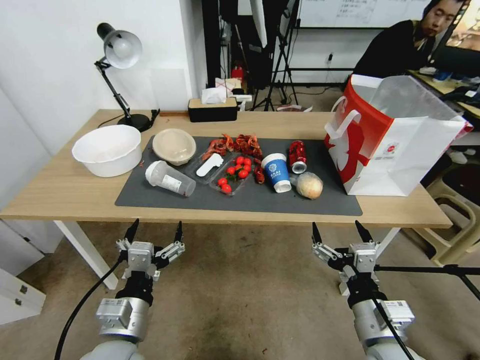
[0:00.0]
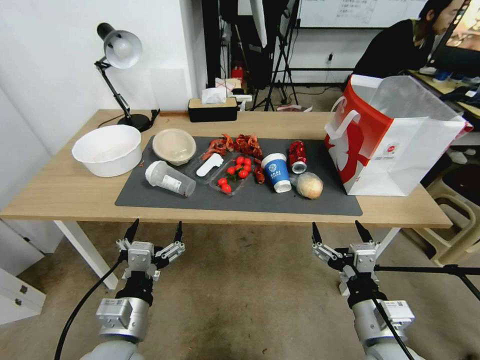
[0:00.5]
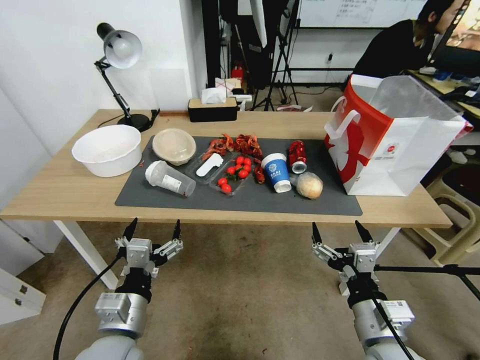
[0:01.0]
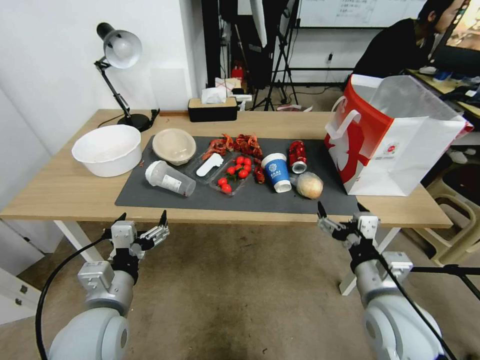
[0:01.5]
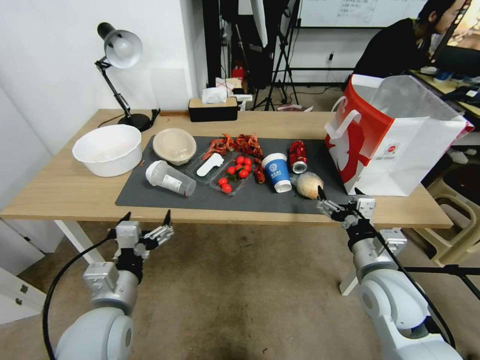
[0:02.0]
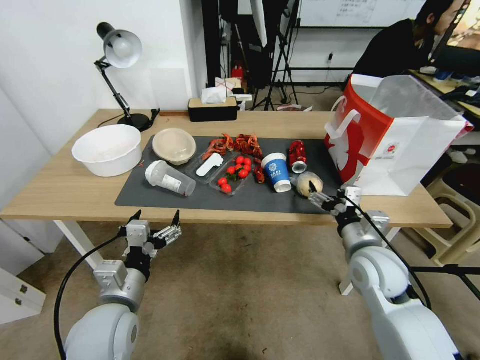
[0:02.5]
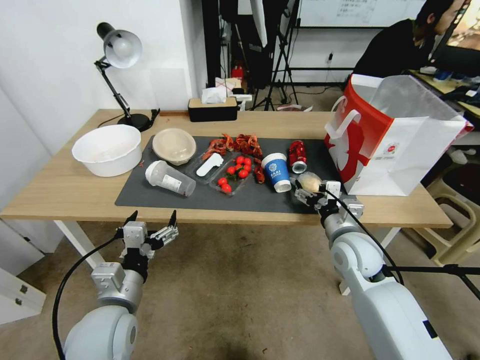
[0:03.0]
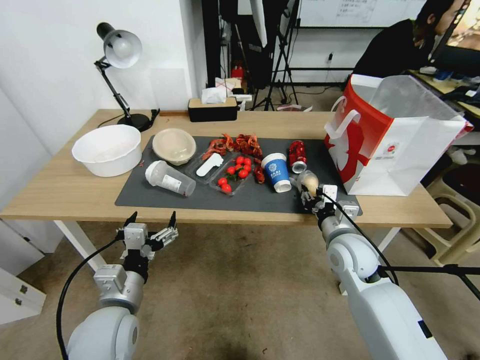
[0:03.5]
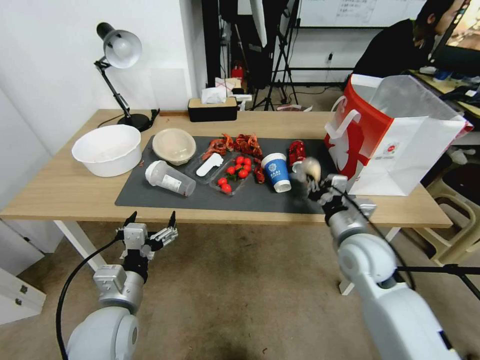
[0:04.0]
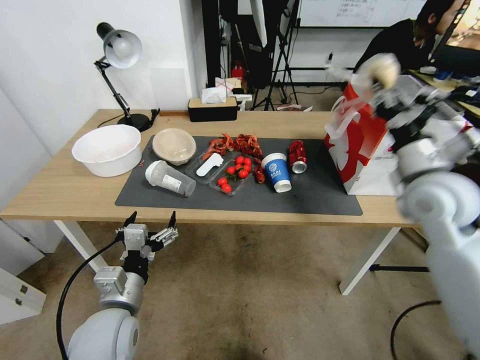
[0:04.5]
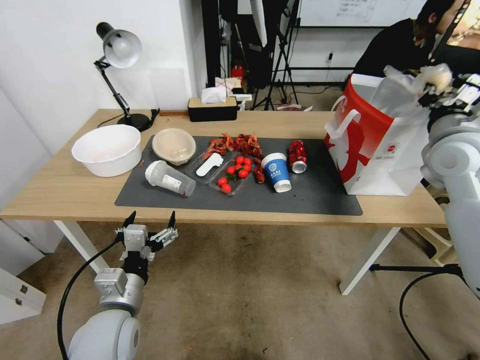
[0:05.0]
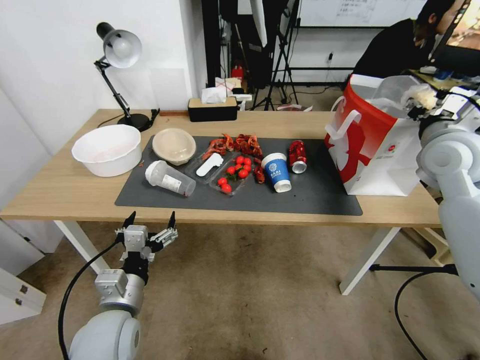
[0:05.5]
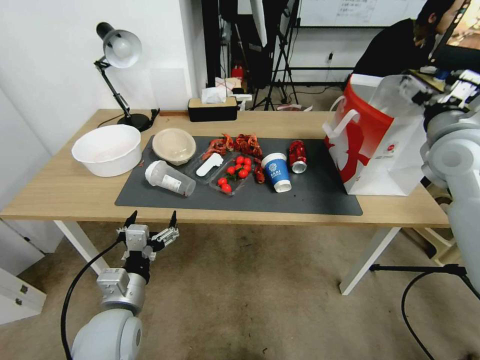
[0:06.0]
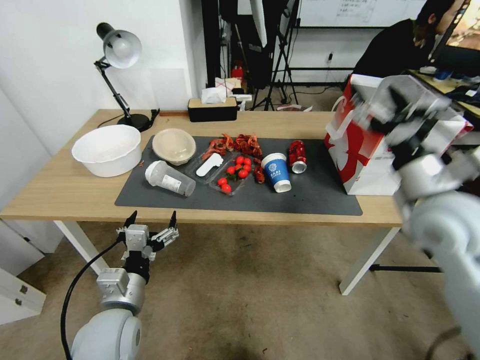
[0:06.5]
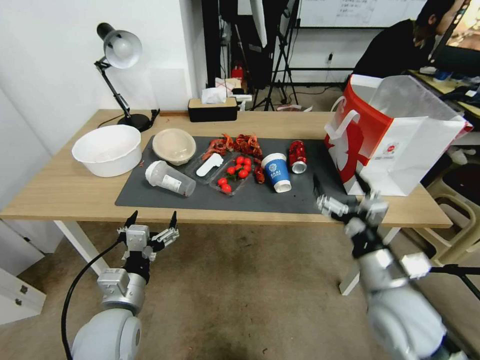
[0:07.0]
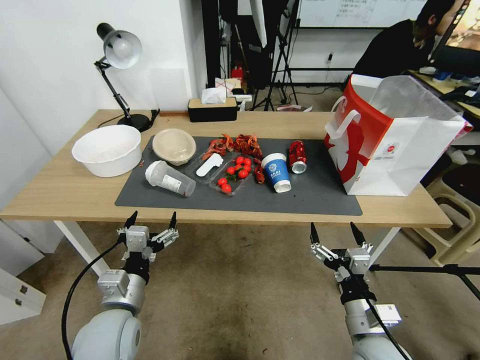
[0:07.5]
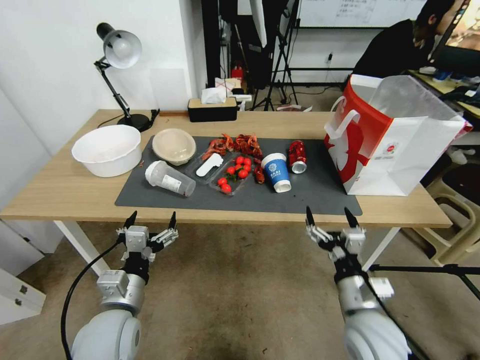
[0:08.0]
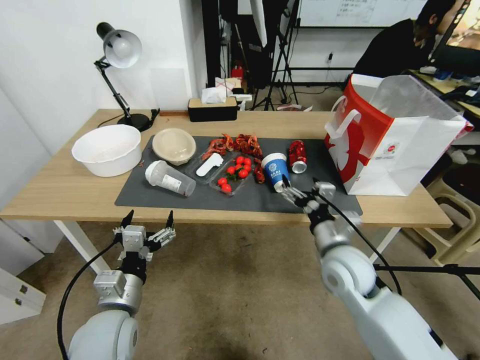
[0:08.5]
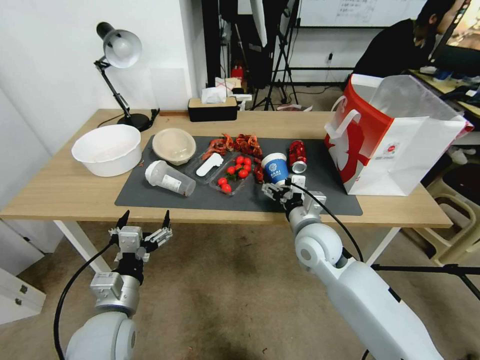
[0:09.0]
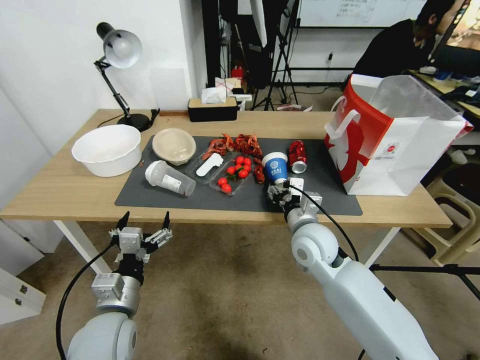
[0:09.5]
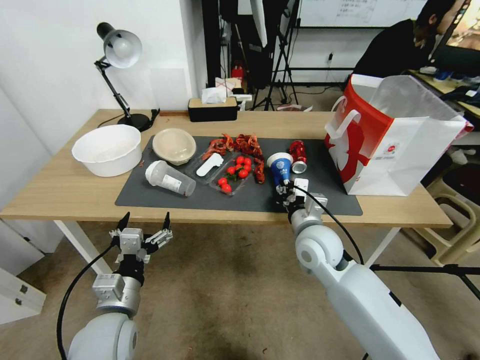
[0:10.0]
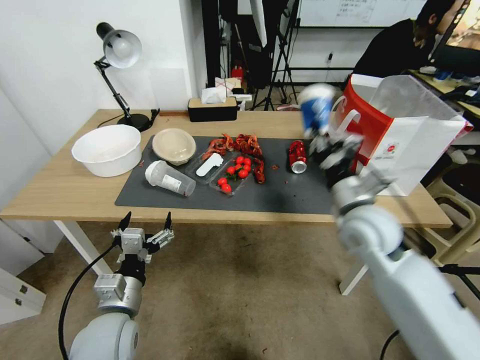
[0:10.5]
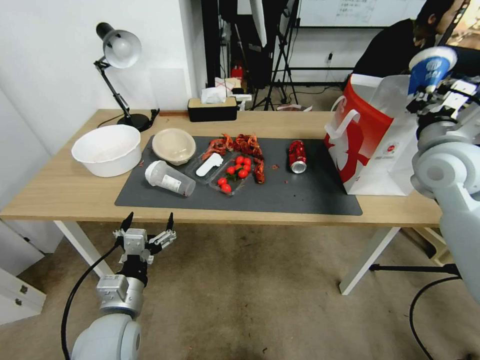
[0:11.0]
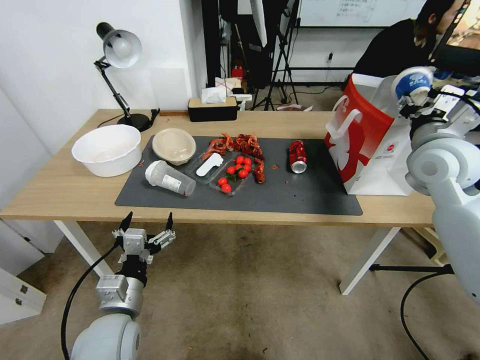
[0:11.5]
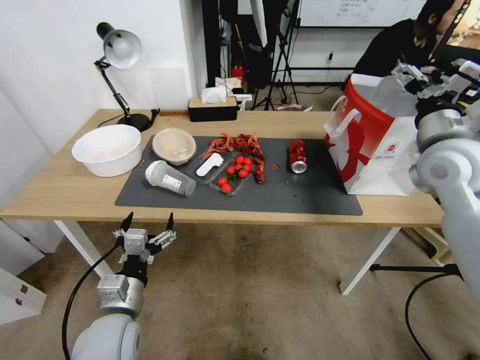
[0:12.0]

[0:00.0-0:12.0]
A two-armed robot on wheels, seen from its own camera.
2.0 to 4.0 s: The right gripper travels forward by about 5 cm, and closes its fingers.
4.0 to 6.0 s: The right gripper heads upward, to the right and forward, covering approximately 25 cm, and opens up.
6.0 to 8.0 s: The right gripper shifts approximately 35 cm downward, backward and to the left.
8.0 to 10.0 s: The right gripper goes about 15 cm forward and to the left, and closes its fingers.
10.0 to 12.0 s: The right gripper heads upward and to the right, covering roughly 30 cm, and opens.

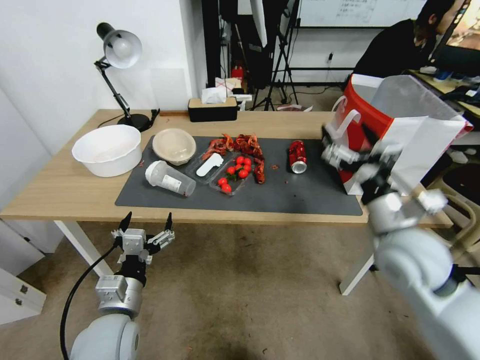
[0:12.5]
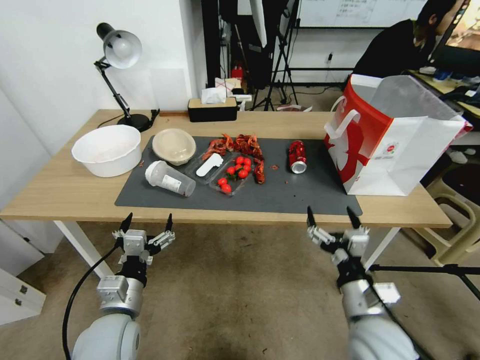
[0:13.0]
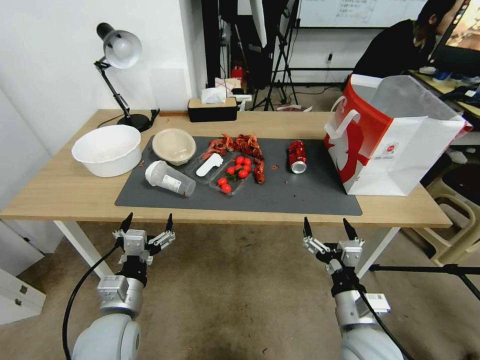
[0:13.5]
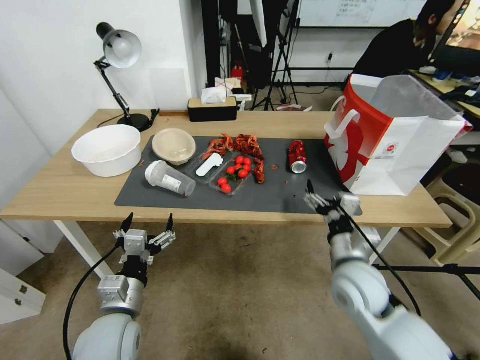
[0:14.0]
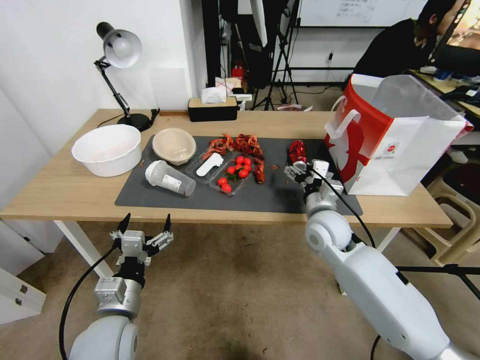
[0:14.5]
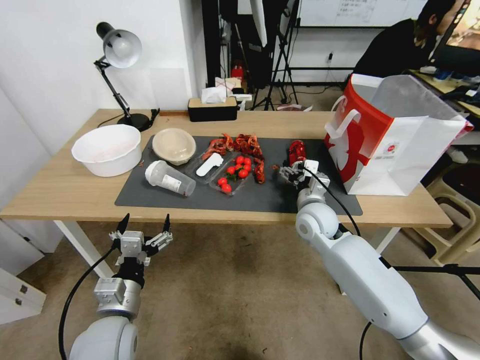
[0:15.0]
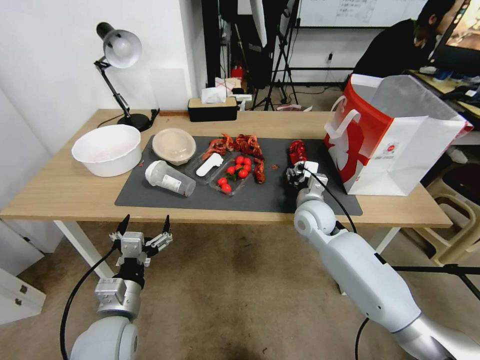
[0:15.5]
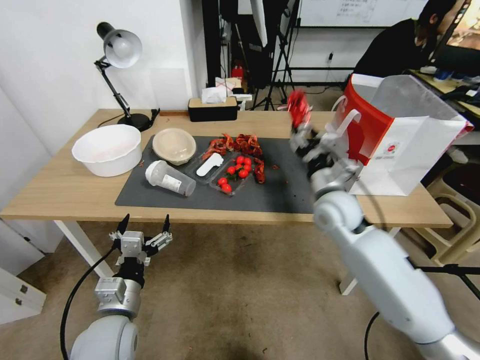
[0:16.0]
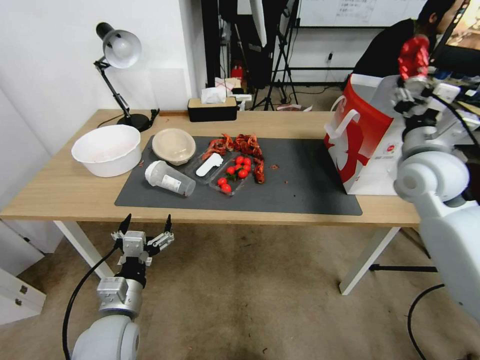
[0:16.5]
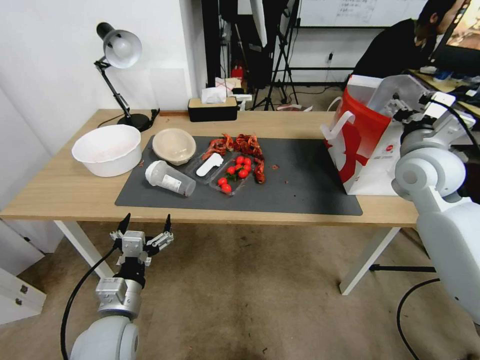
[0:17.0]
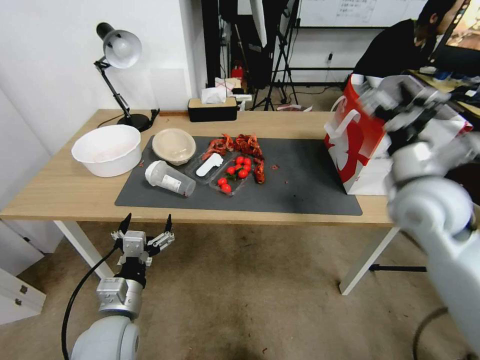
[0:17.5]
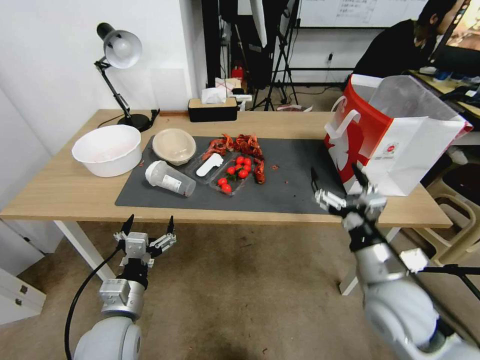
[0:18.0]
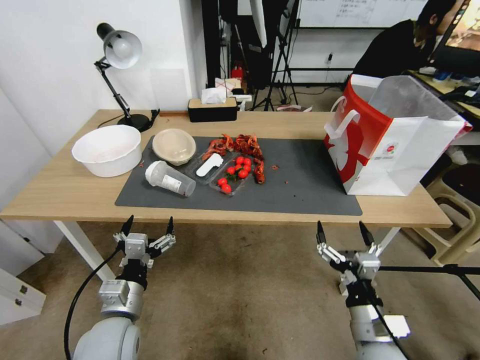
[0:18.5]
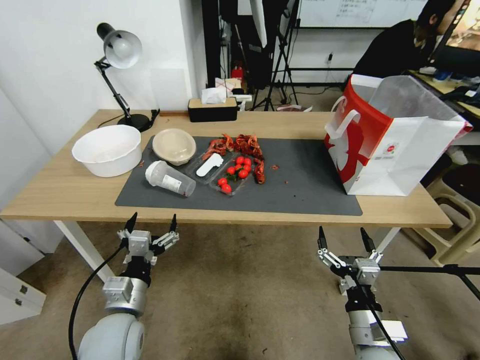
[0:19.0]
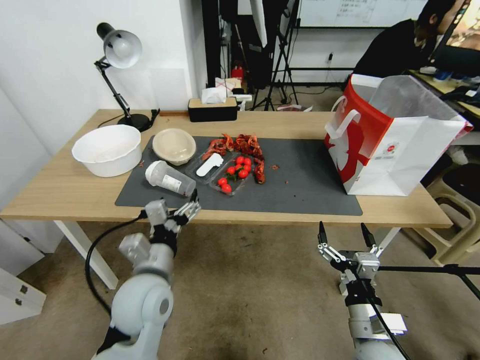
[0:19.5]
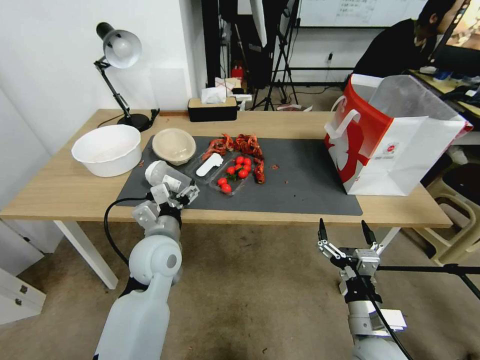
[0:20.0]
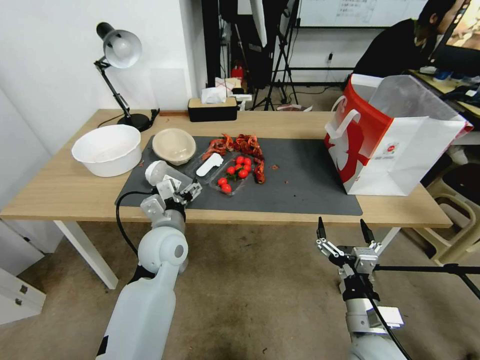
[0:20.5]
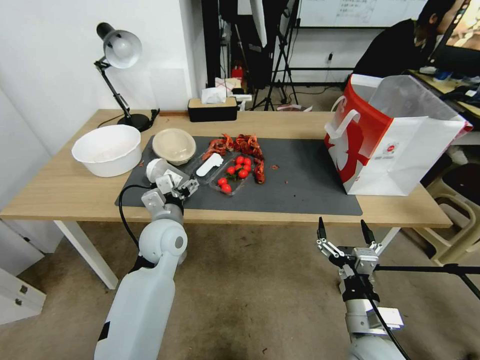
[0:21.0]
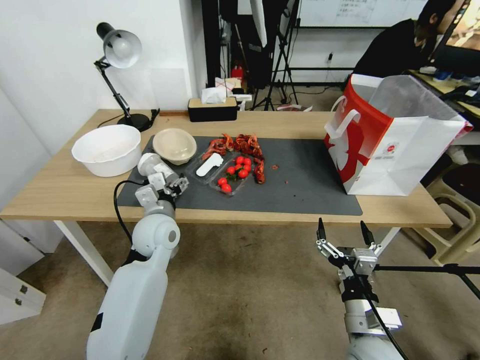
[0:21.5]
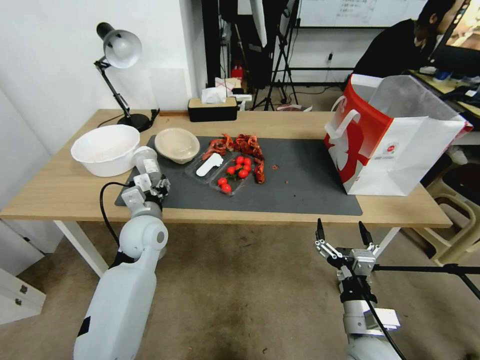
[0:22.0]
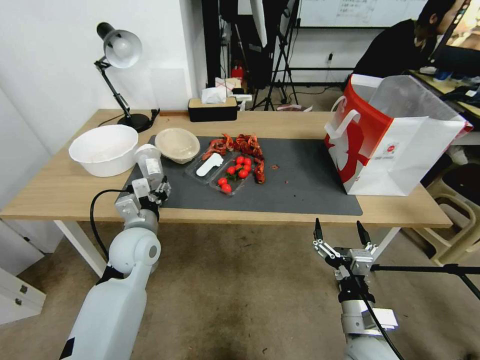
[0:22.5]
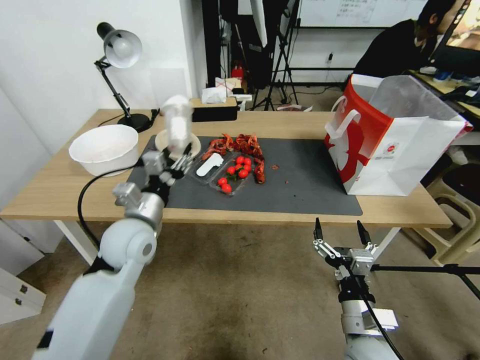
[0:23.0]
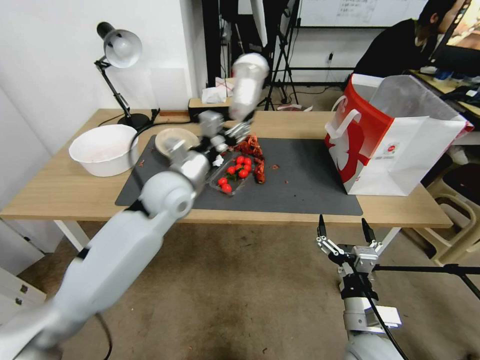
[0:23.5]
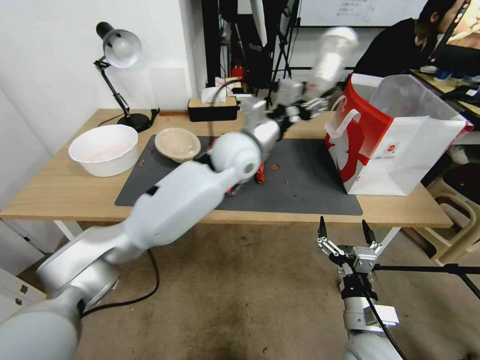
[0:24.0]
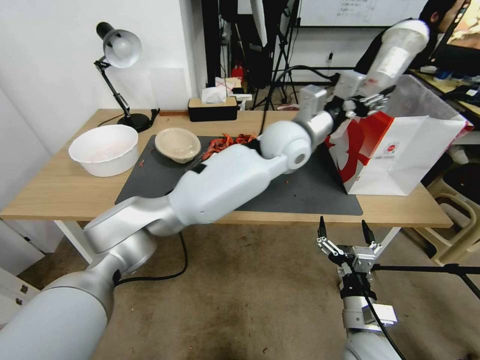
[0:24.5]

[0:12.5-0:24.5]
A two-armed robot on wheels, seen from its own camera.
12.5 to 14.5 s: The right gripper goes approximately 20 cm downward and to the left, and goes backward and returns, approximately 15 cm each way.
14.5 to 16.5 s: The right gripper moves upward and to the right, about 20 cm, and closes its fingers.
16.5 to 18.5 s: The right gripper shifts some 35 cm backward and downward, and opens.
18.5 to 20.5 s: The left gripper heads forward and to the right, covering roughly 15 cm.
20.5 to 22.5 s: The left gripper heads to the left, covering roughly 5 cm, and closes up.
22.5 to 24.5 s: The left gripper travels to the right, upward and forward by about 40 cm.

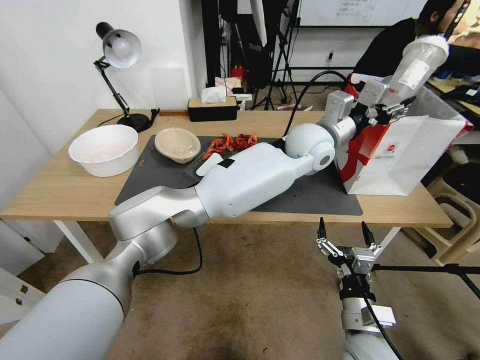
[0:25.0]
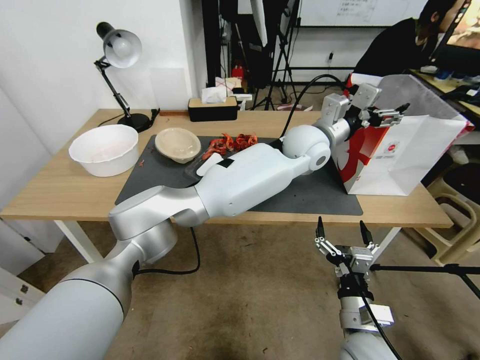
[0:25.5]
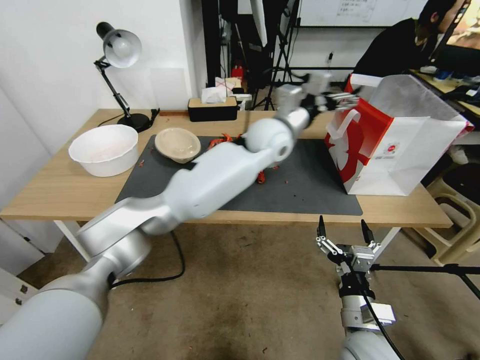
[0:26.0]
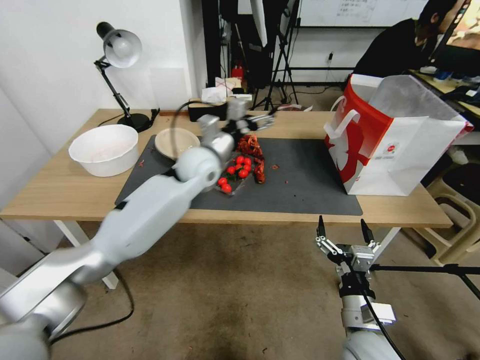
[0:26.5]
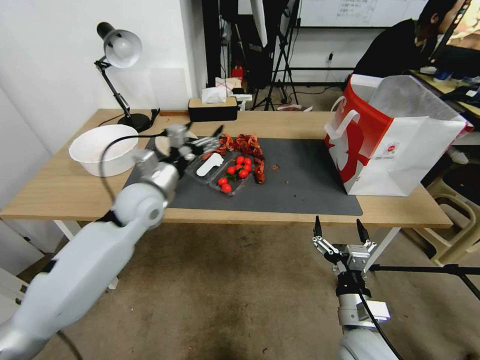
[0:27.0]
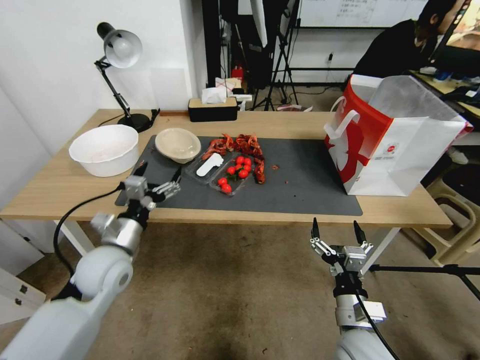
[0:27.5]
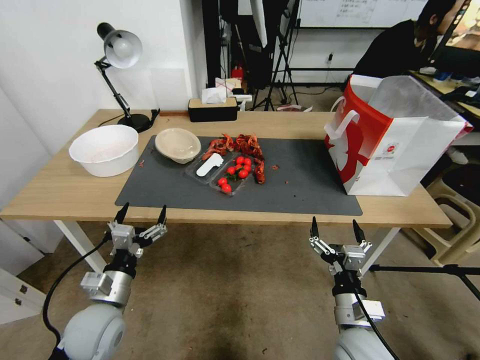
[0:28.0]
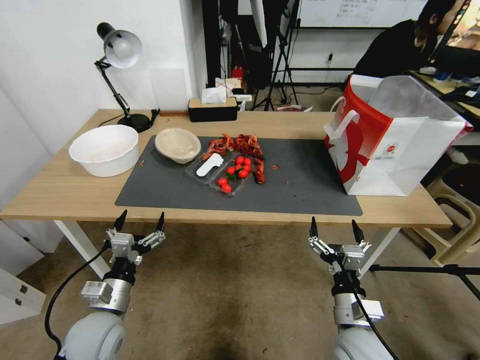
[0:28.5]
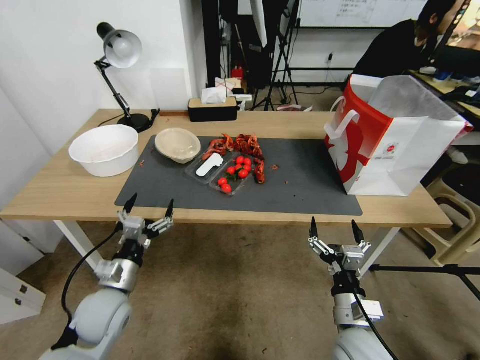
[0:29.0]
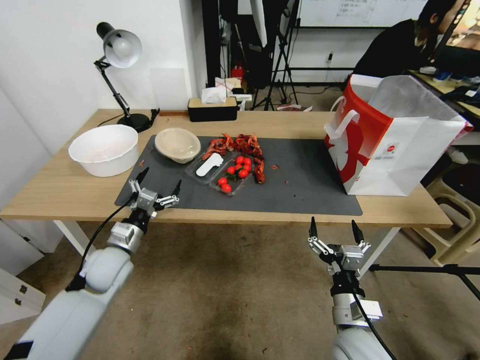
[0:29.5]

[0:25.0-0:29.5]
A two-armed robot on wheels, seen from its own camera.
25.0 to 27.0 s: The left gripper heads to the left, covering roughly 35 cm, and opens up.
27.0 to 29.5 s: The left gripper heads downward, to the left and backward, covering roughly 15 cm.
